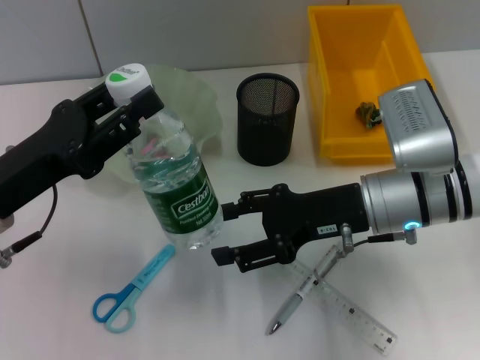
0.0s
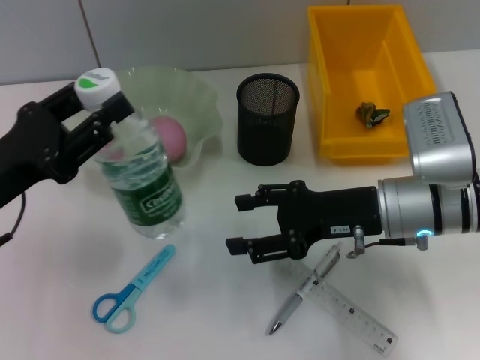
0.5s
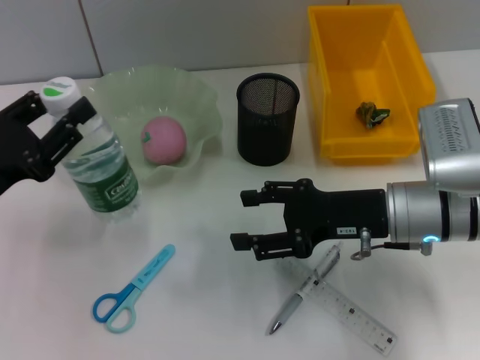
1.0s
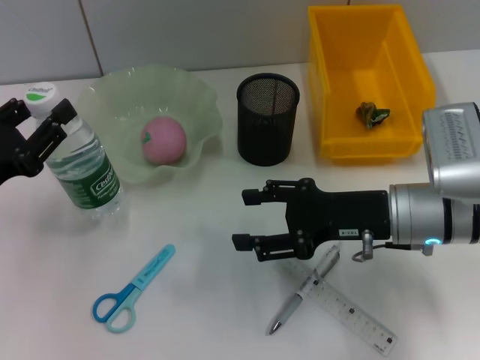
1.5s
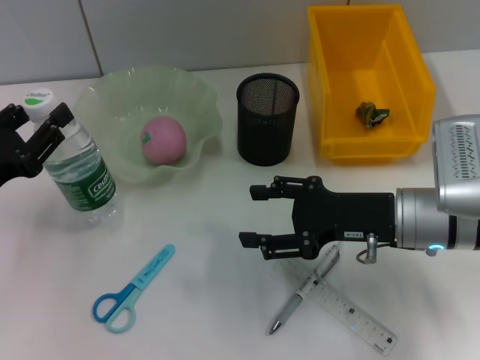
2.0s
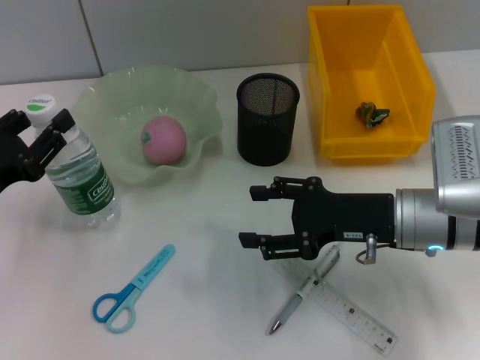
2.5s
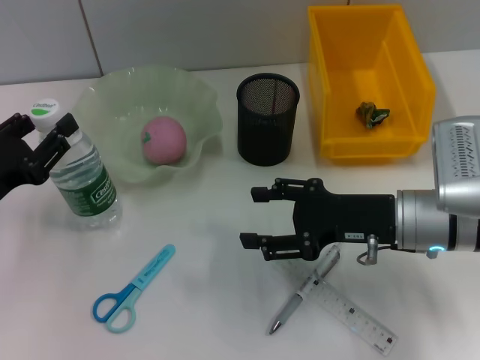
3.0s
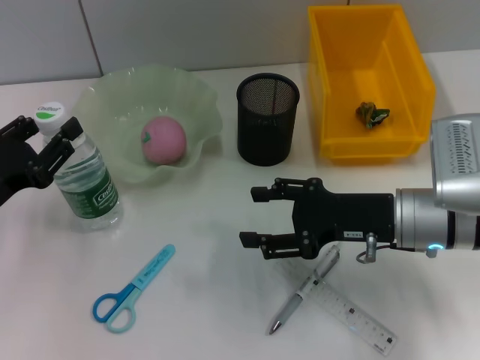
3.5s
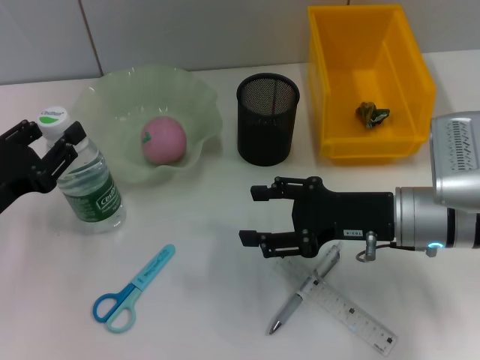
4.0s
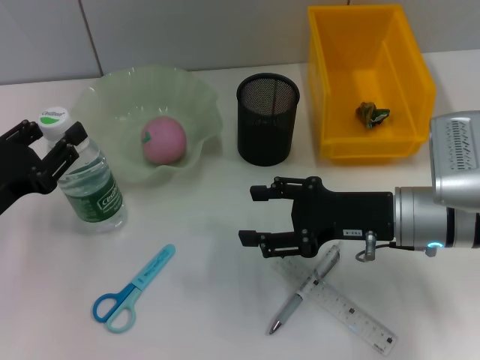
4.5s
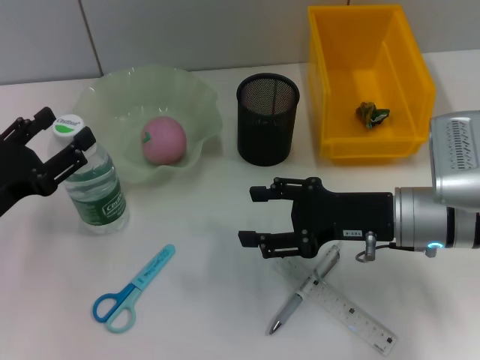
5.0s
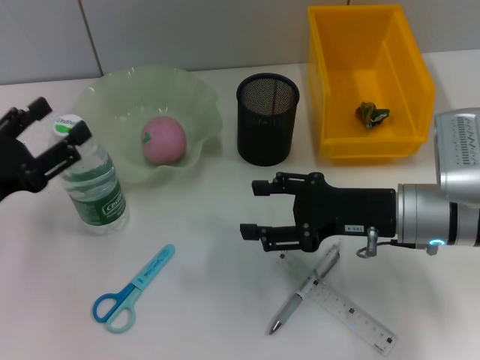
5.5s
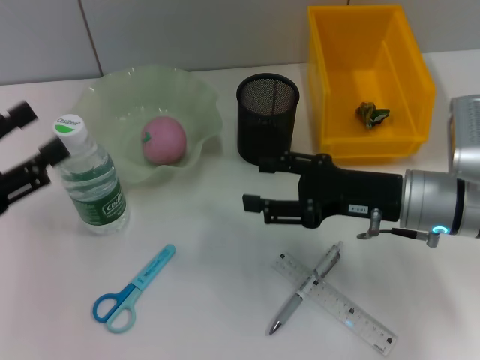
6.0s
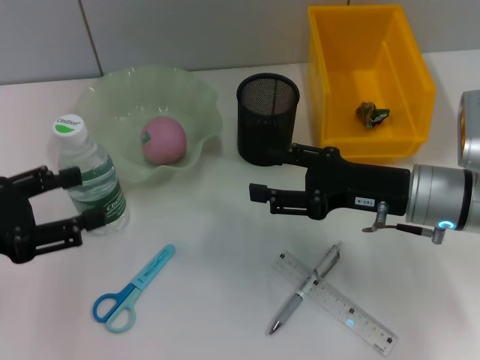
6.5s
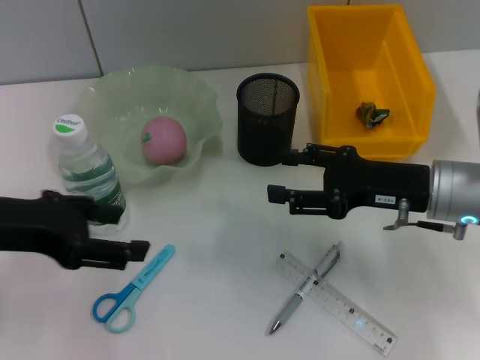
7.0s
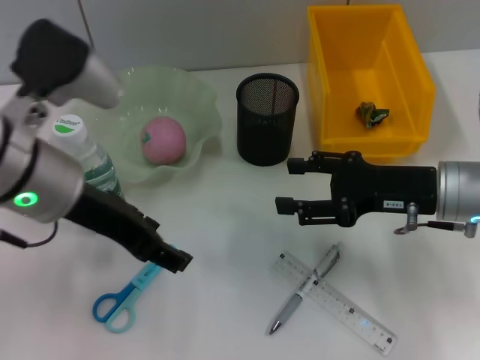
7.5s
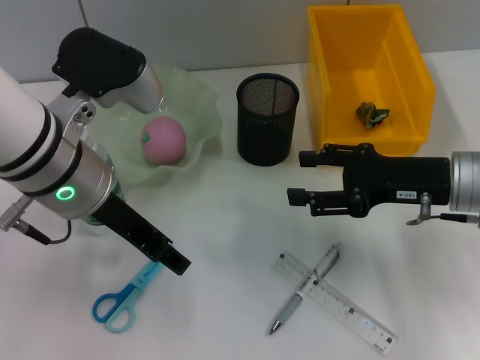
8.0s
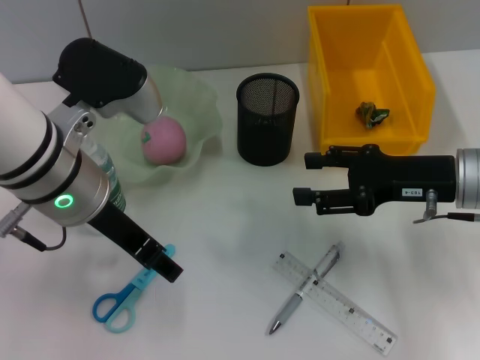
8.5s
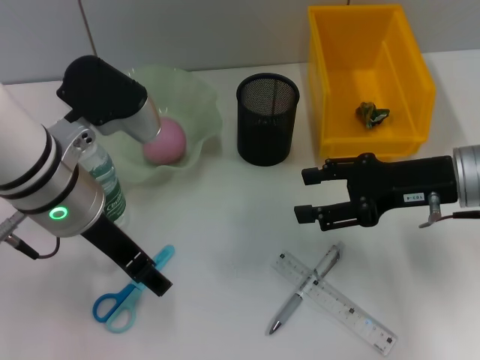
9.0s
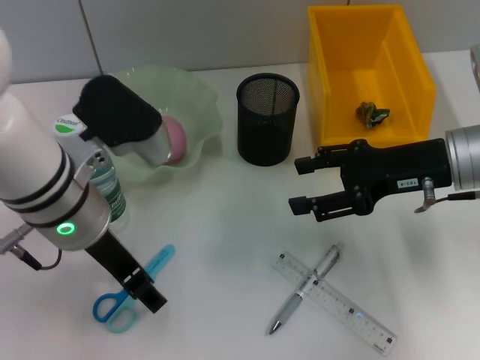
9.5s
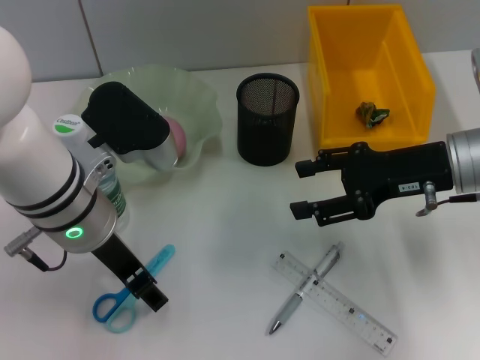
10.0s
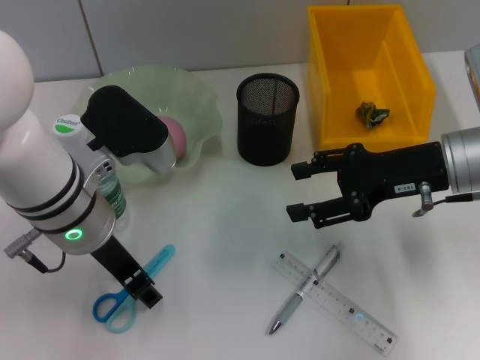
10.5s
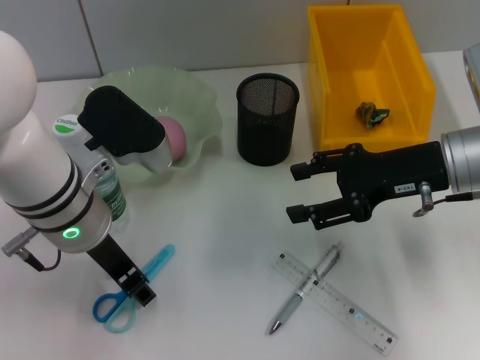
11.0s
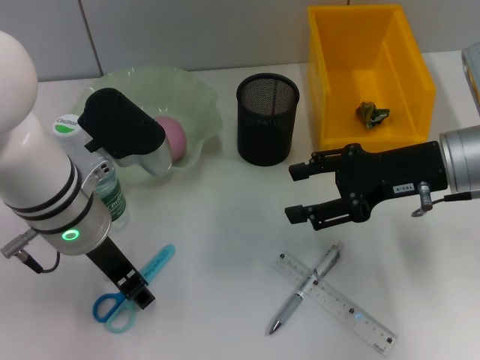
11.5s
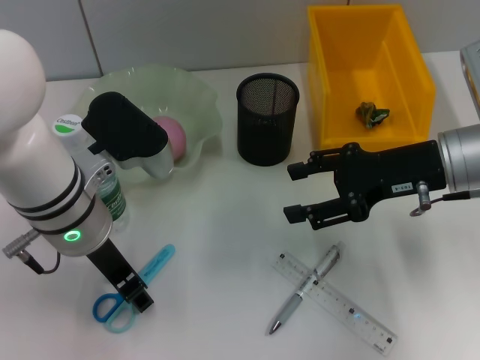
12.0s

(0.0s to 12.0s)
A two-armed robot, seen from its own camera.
Step, 0.5s - 5.0s: Place the water bottle on the table with the left hand.
0.0s - 2.0s: The left gripper travels to the left by roughly 5 cm.
2.0s - 4.0s: Both grippers stay put.
4.0s - 6.0s: The left gripper ends up approximately 5 cm from where it was, and opens its fingers.
6.0s - 8.0s: The left gripper shifts approximately 20 cm to the right.
10.0s - 12.0s: Neither gripper changes place.

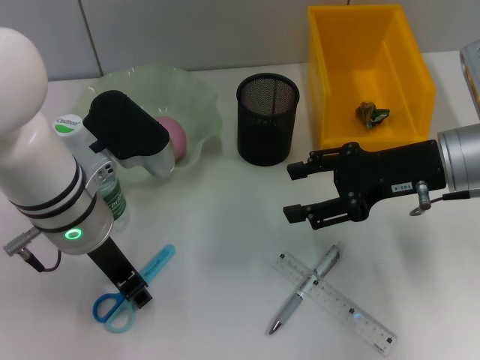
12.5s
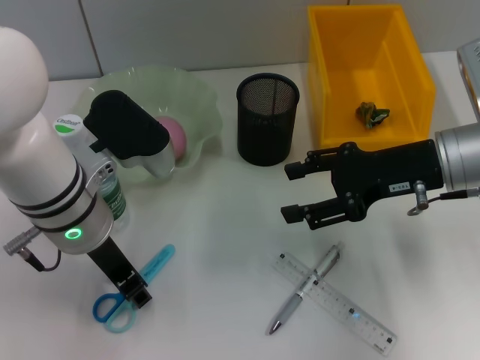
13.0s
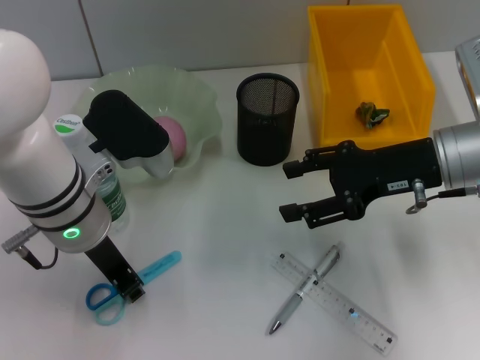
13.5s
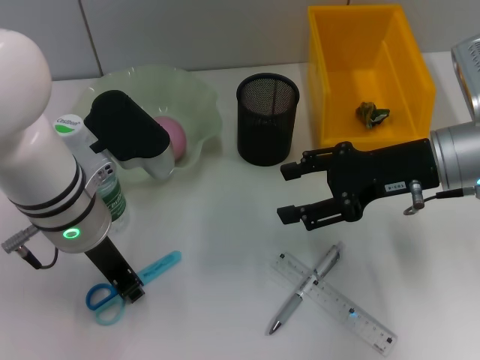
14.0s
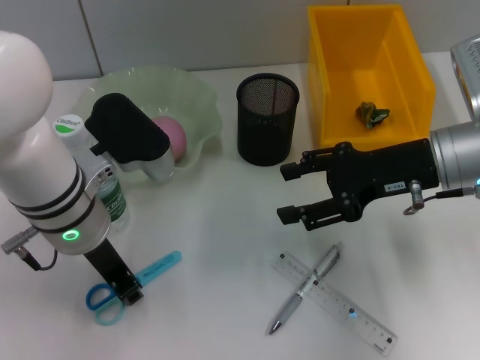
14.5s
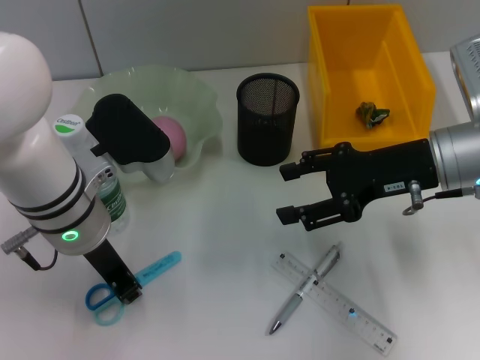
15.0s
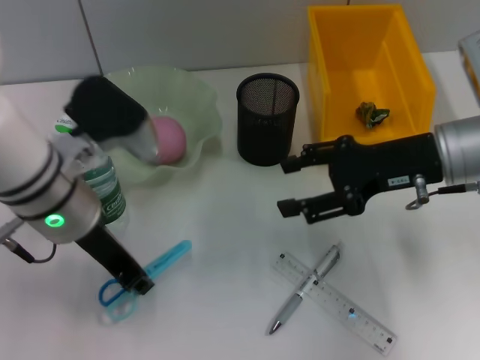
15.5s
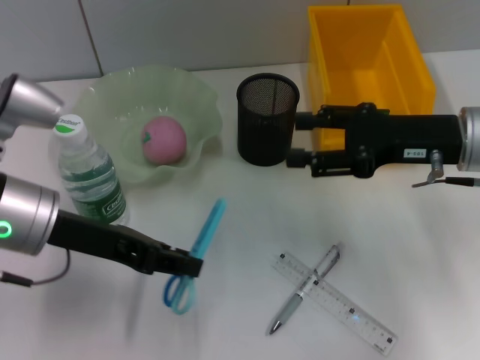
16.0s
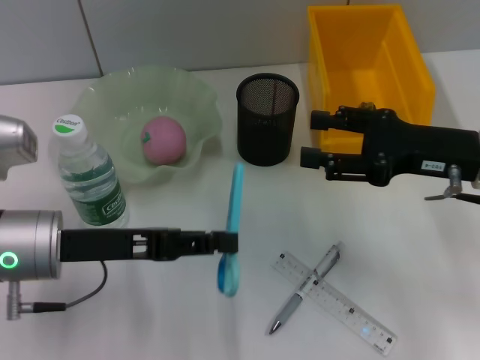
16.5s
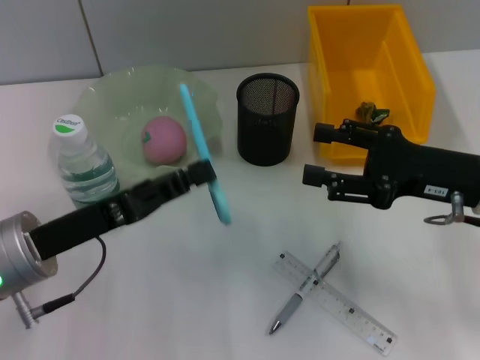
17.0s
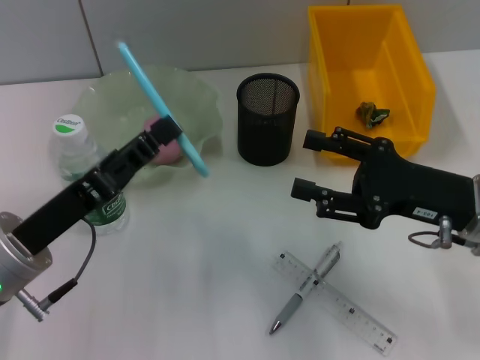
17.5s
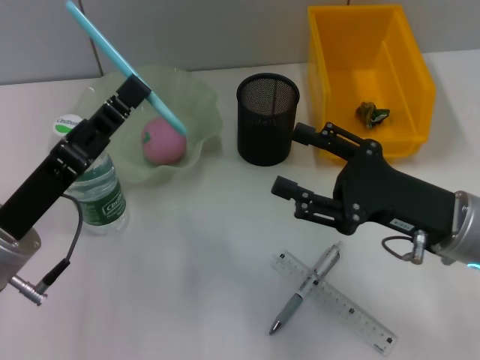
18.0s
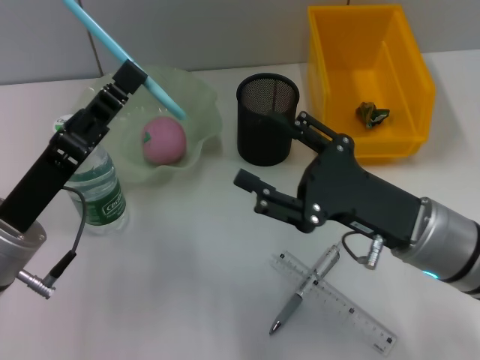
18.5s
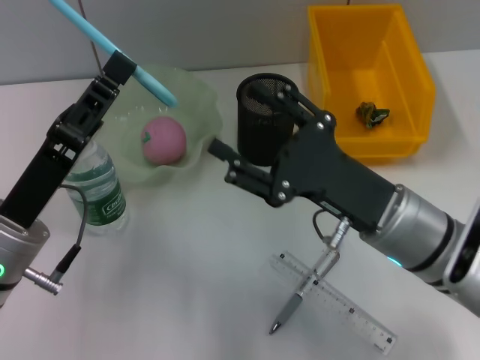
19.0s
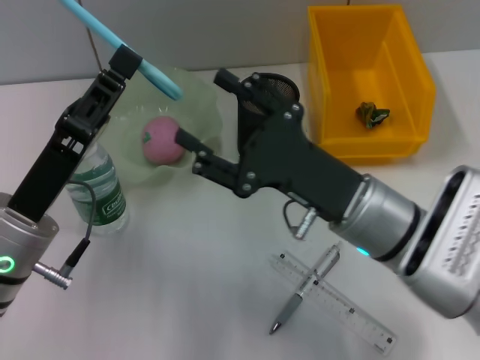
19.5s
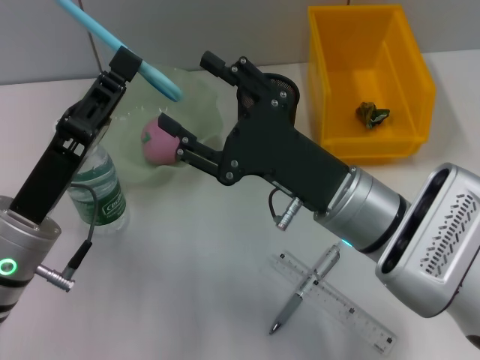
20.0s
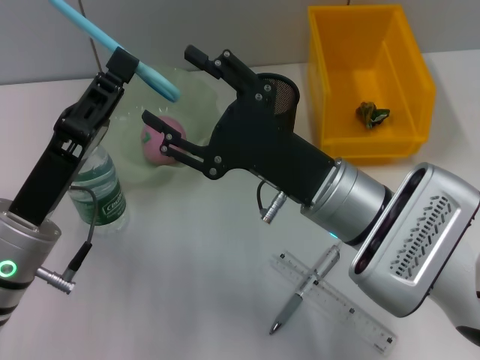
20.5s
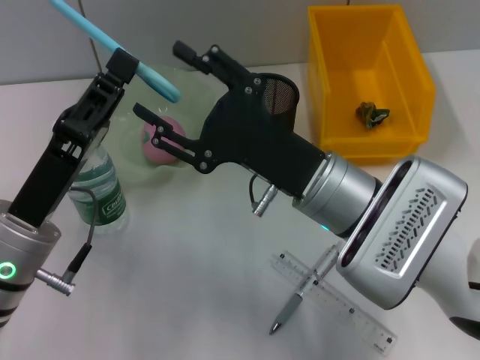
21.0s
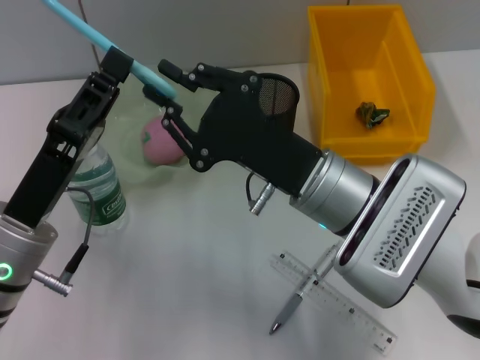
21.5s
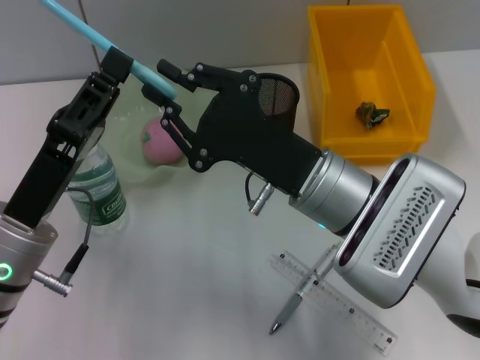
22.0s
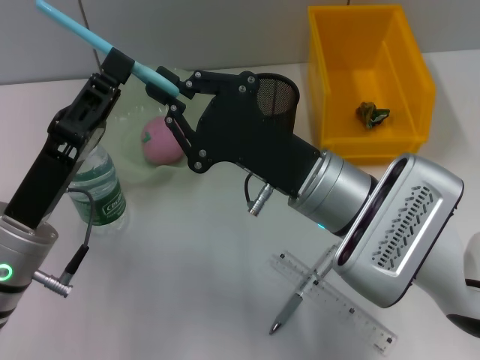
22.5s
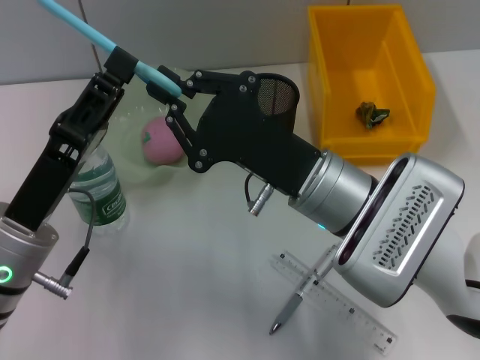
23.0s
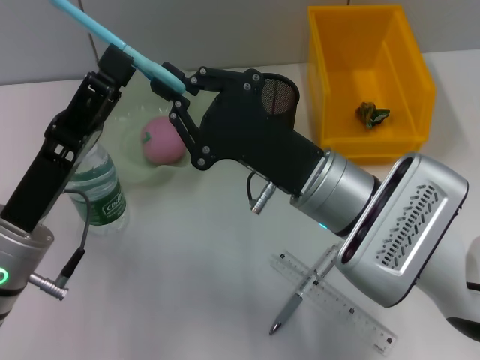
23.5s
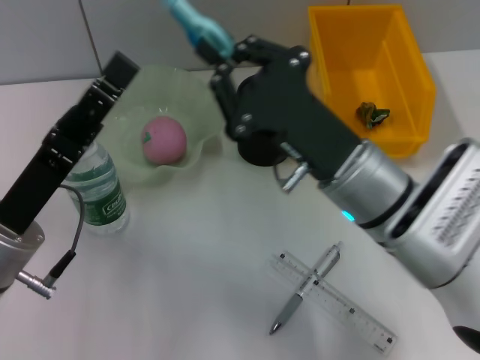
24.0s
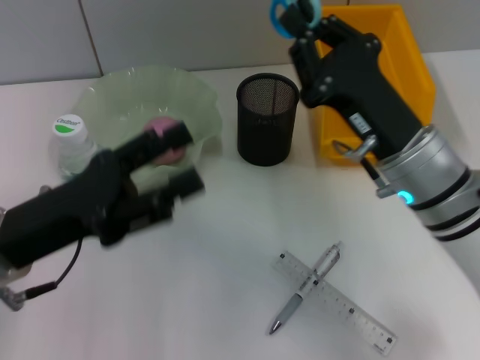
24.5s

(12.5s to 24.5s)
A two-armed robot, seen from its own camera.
Step, 12.5s - 15.0s: Grab the blue scissors with the left hand.
Step, 15.5s - 23.5s: Pass the blue scissors from the left hand to the right hand.
12.5s - 14.5s: Both grippers stay about where they are.
14.5s - 16.5s: The left gripper travels to the left by roughly 5 cm.
16.5s - 18.5s: The right gripper travels to the left, downward and backward by approximately 10 cm.
18.5s - 20.5s: The right gripper heads to the left, covering some 10 cm.
20.5s - 22.5s: The right gripper closes up.
22.5s - 24.5s: The left gripper opens. Meanwhile the right gripper moves to the right, some 5 cm.

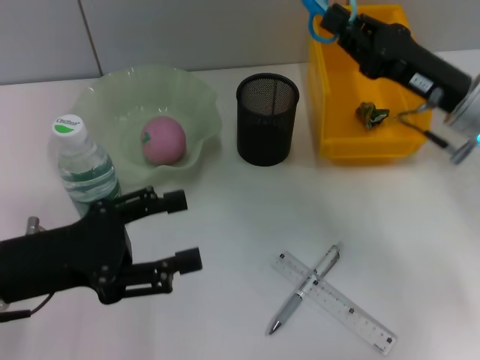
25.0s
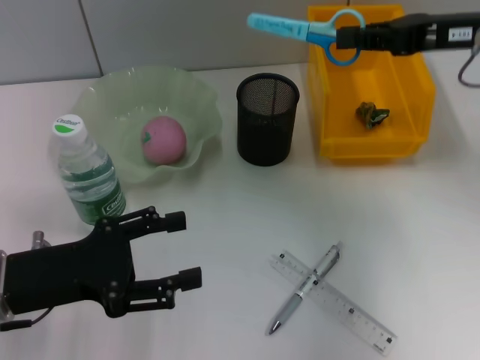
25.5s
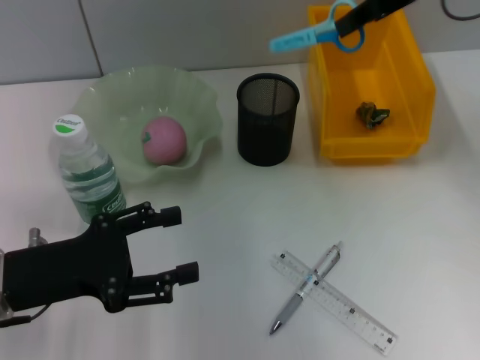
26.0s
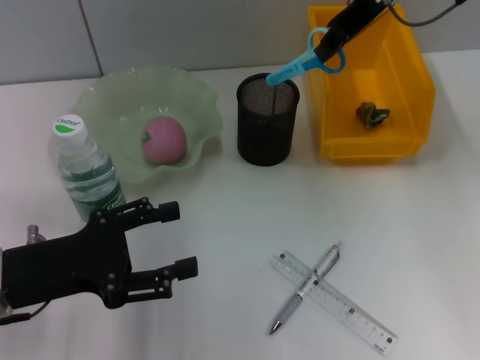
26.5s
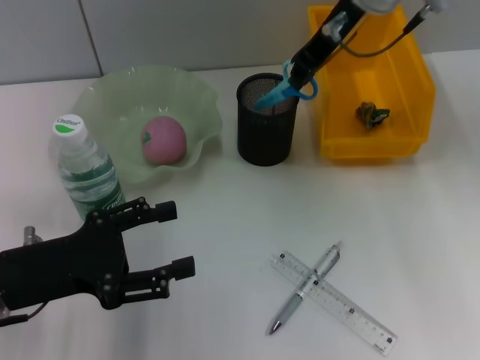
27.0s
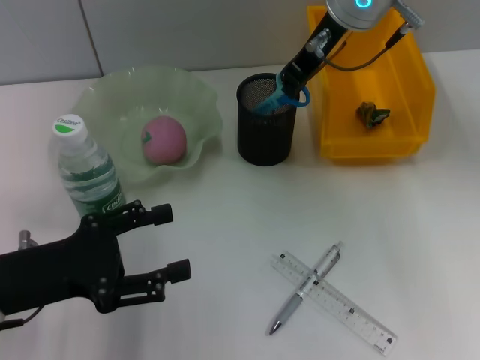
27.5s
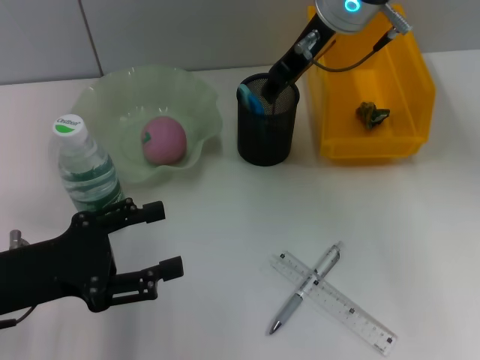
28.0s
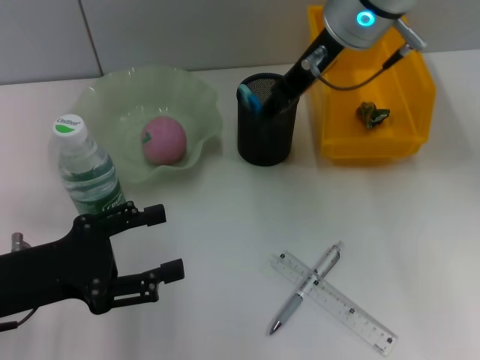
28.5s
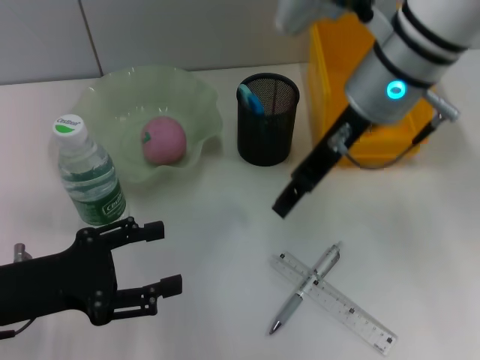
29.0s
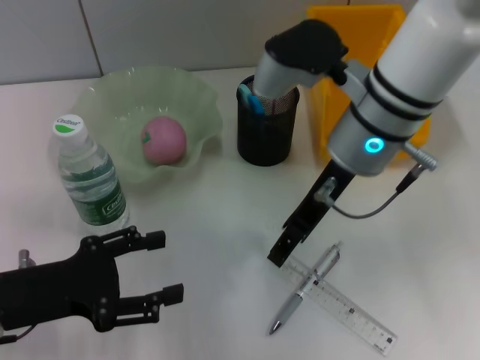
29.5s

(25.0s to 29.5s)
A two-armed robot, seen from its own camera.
Step, 25.0s - 28.0s: Place the blue scissors into the pen holder with the right hand.
25.0s - 27.0s: The right gripper moves upward, to the left and forward, about 20 cm.
27.0s - 29.5s: The right gripper moves backward and downward, about 15 cm, and opens.
